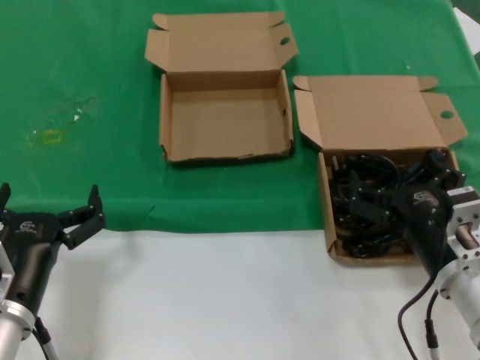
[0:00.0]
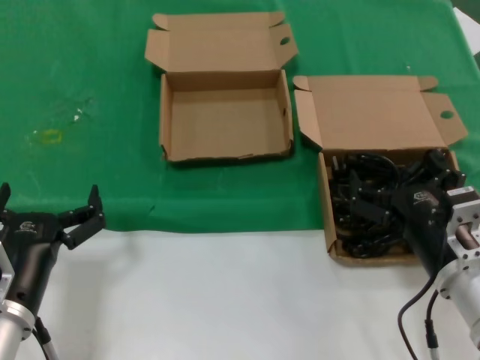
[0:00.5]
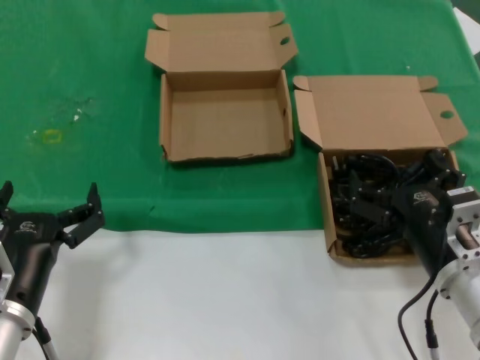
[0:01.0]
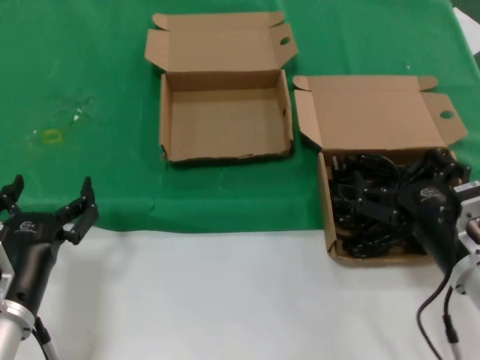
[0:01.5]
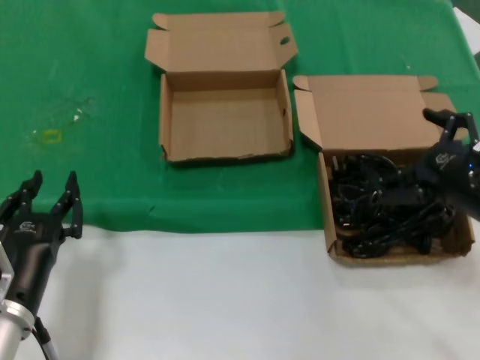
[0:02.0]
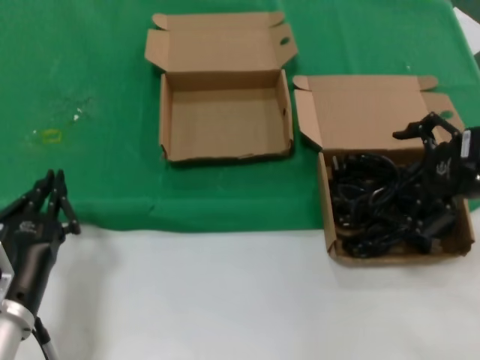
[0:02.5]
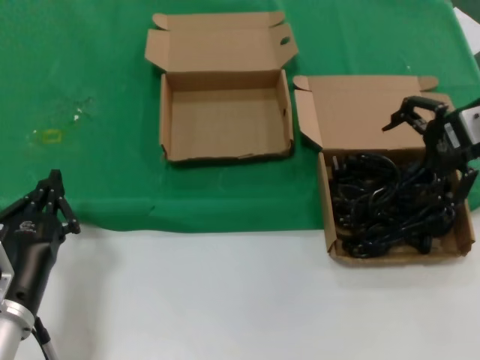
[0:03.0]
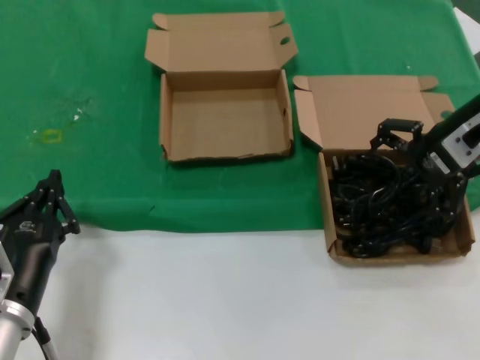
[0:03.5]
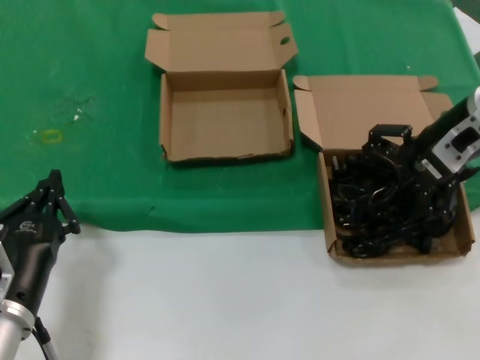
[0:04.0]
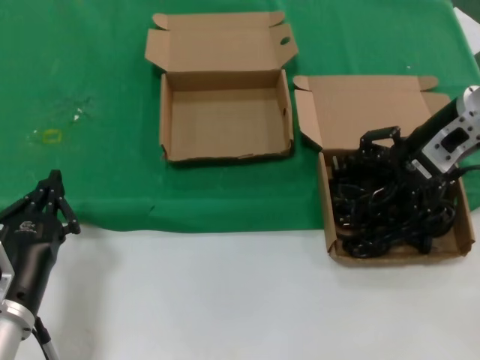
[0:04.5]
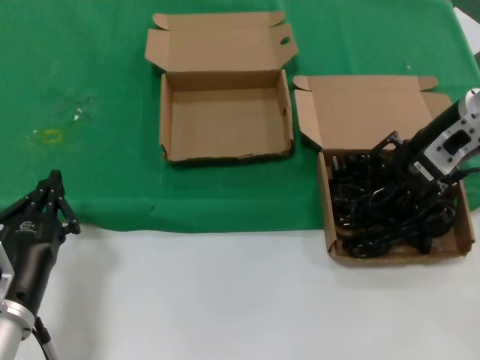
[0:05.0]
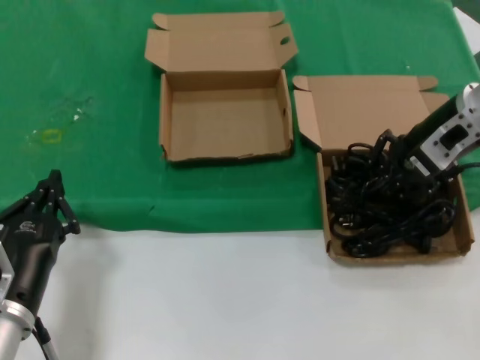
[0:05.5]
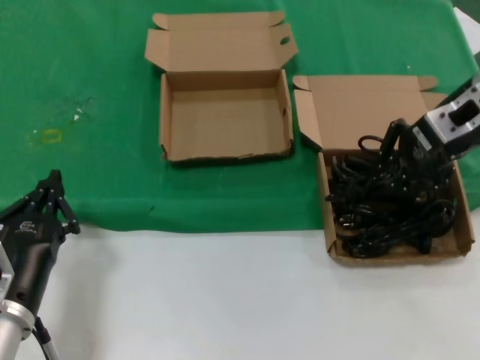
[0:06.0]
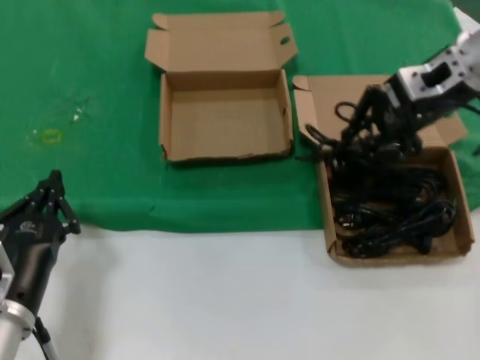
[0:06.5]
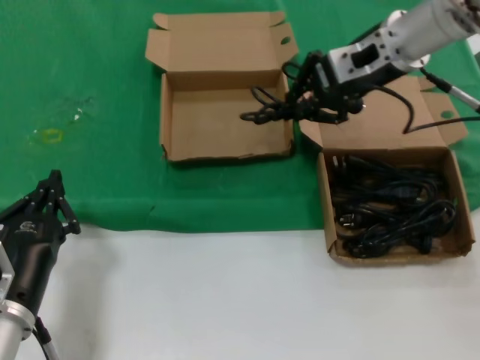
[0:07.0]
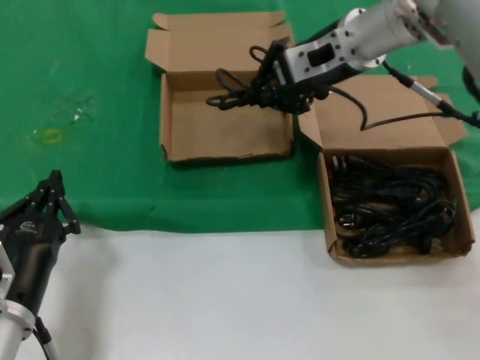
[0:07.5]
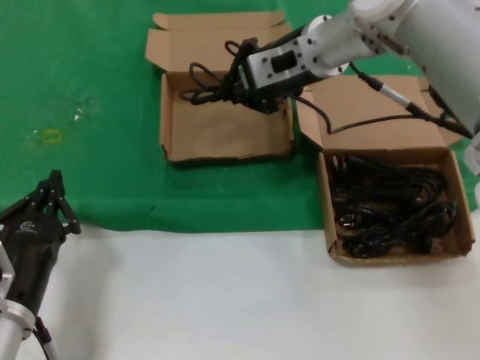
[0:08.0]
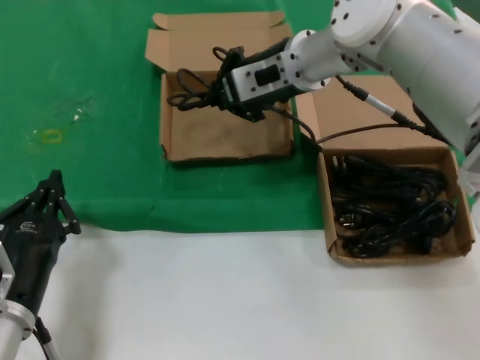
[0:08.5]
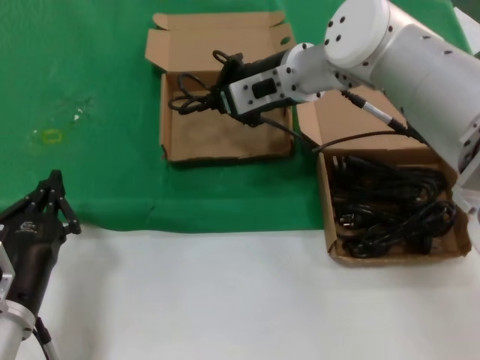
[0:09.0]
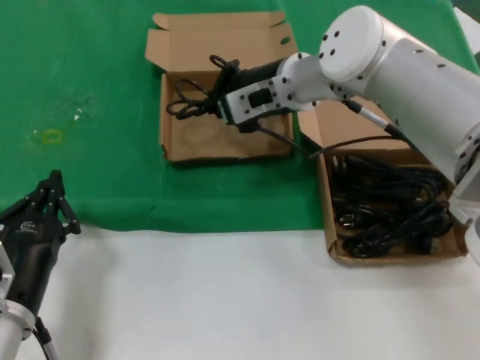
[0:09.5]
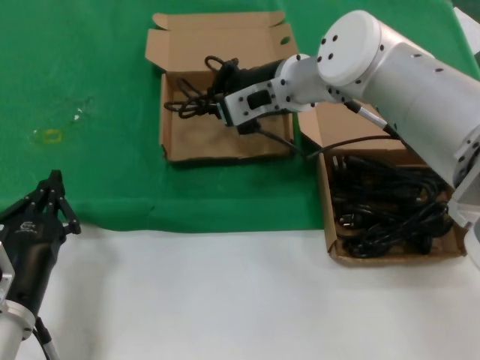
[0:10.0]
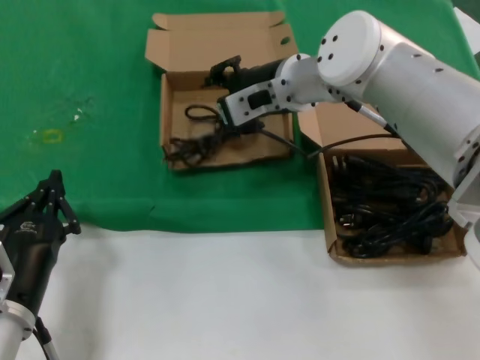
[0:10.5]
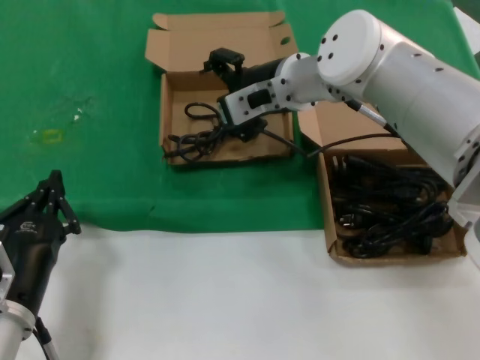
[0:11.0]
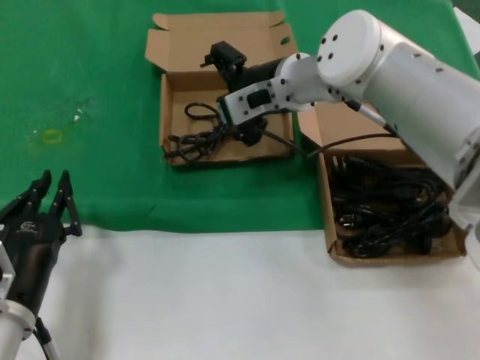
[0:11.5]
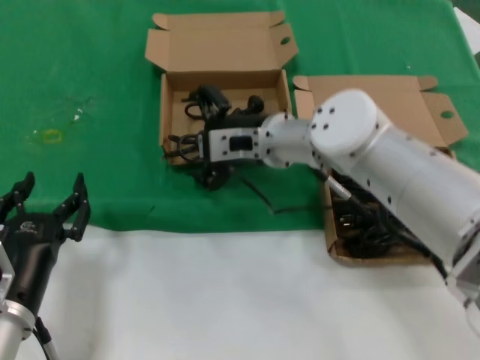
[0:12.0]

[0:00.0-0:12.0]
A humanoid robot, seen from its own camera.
Task of the whole recording: take the parts from the box containing them and put them into an empty box.
Step, 0:00.0 to 0:05.5: Grasp the data cable.
Step, 0:06.0 to 0:10.5: Place the data cable in the another box.
0:00.0 to 0:02.0: The right hand goes roughly 10 cm upward and to the right.
0:02.0 to 0:04.0: The right hand heads forward and upward, covering approximately 20 cm.
0:04.0 to 0:06.0: The hands stay close to where they were, moving slightly.
0:06.0 to 0:08.0: The right hand shifts approximately 20 cm to the left.
0:08.0 to 0:10.0: The right hand moves downward, approximately 5 cm.
0:10.0 to 0:12.0: The right hand goes approximately 5 cm downward.

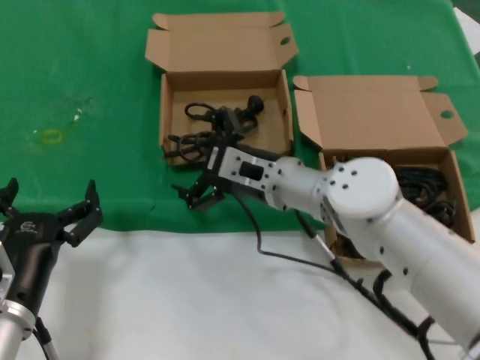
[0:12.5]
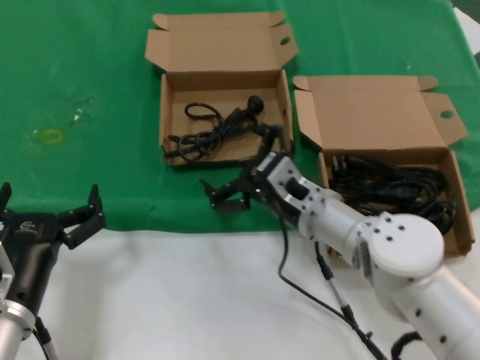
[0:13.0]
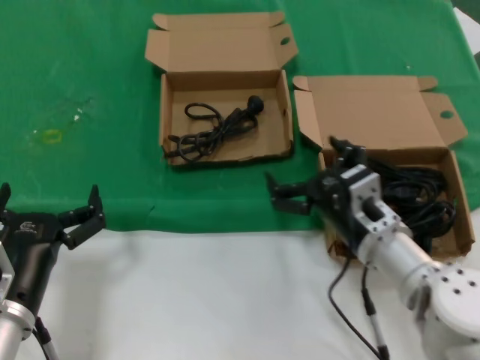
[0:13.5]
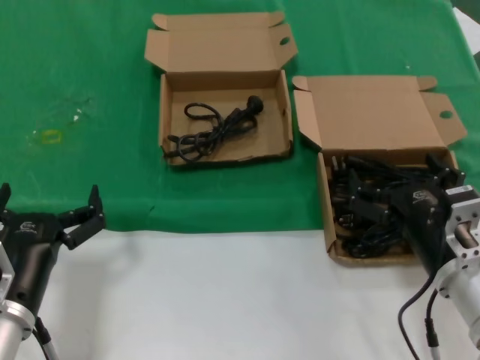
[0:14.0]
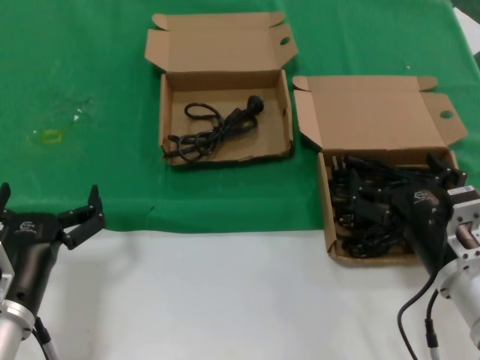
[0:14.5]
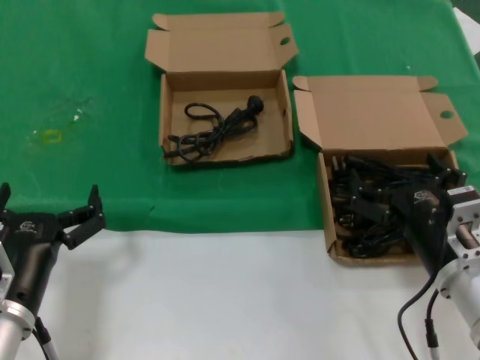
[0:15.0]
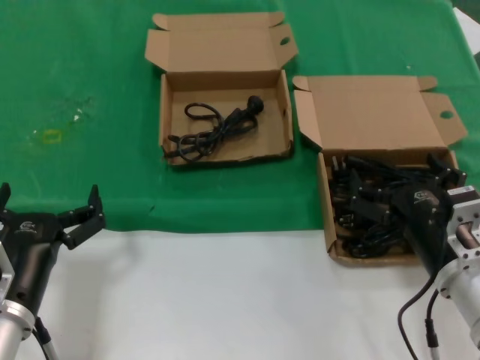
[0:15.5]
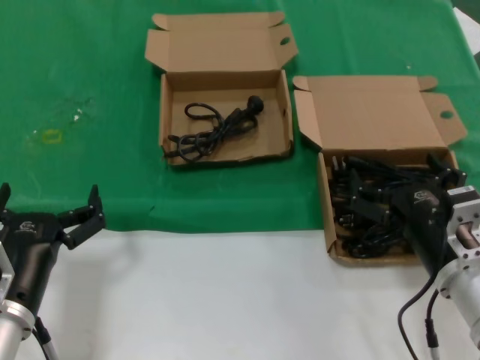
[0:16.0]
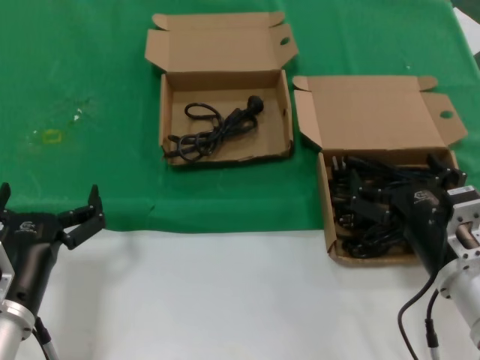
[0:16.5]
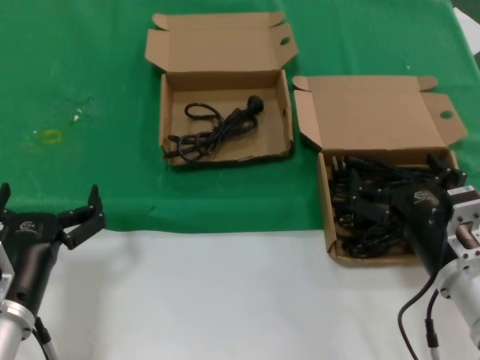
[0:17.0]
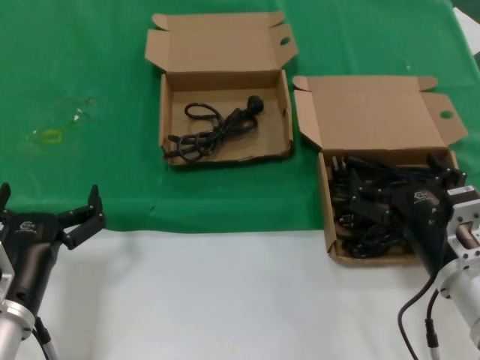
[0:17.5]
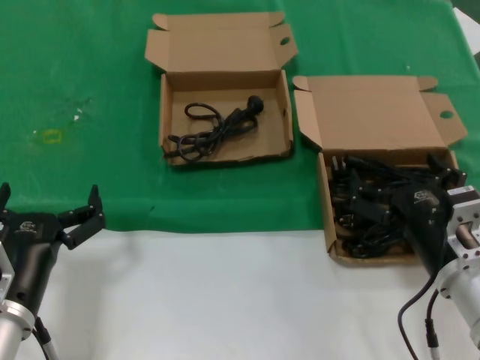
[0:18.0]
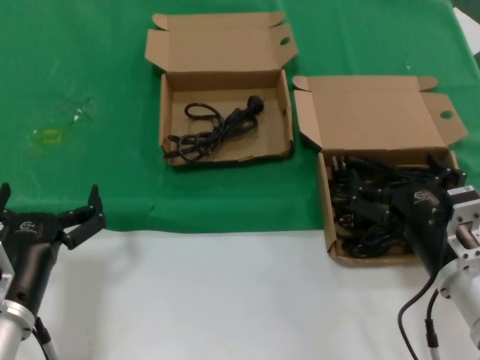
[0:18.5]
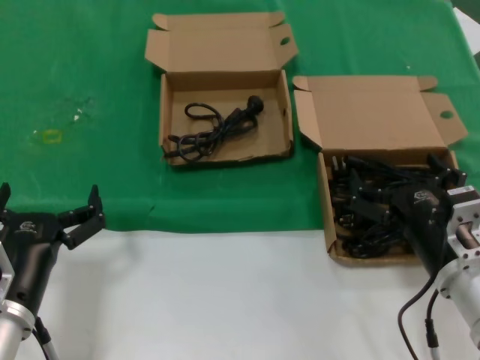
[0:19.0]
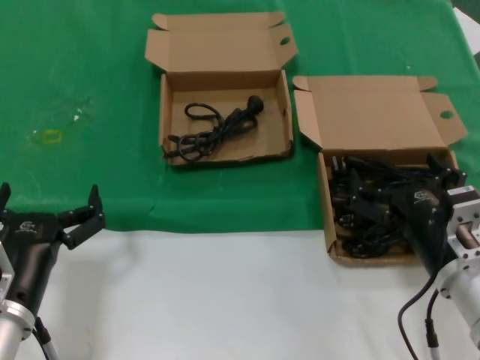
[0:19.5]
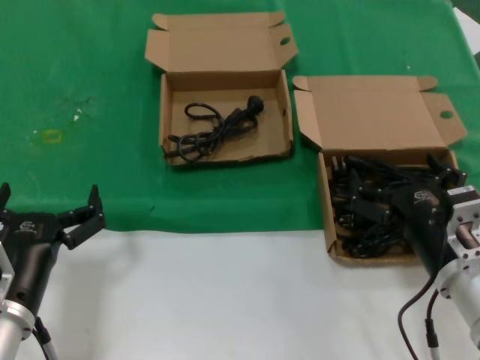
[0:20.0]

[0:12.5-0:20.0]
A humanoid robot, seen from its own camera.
Task of the whole recording: take the parts from the box containing them and put them into an empty box.
0:12.5 to 0:14.5: The right hand heads backward and to the right, covering some 25 cm.
0:14.5 to 0:20.0: Both hands stay about where they are.

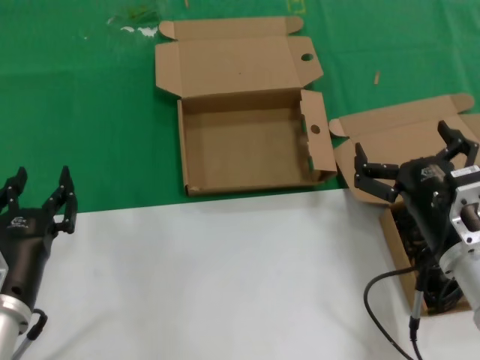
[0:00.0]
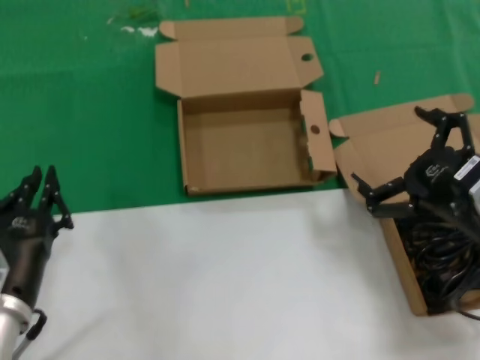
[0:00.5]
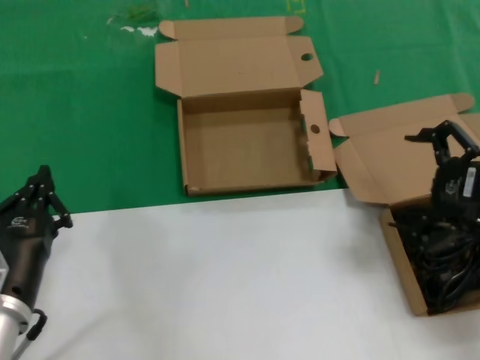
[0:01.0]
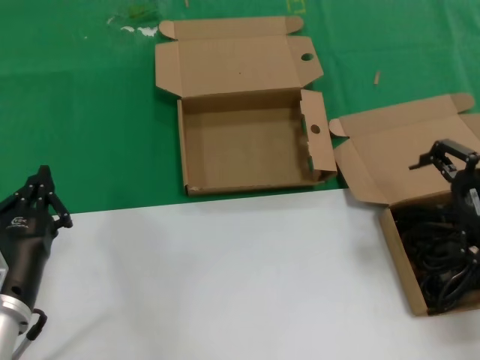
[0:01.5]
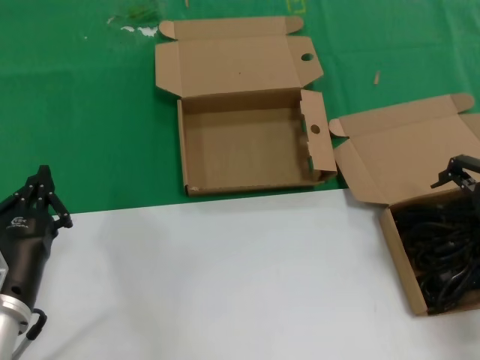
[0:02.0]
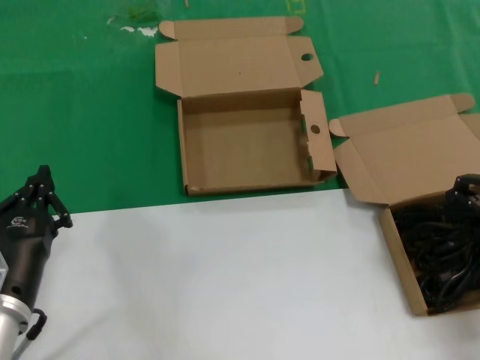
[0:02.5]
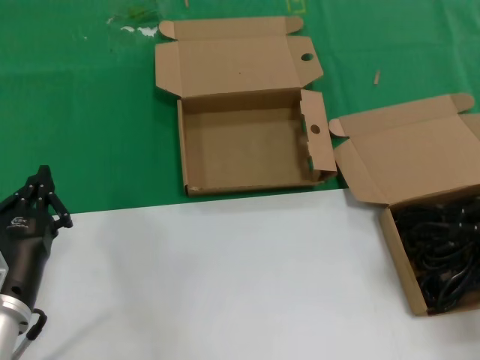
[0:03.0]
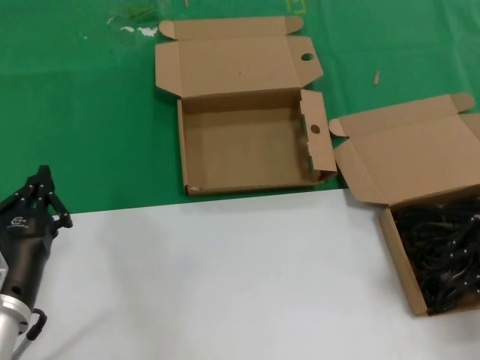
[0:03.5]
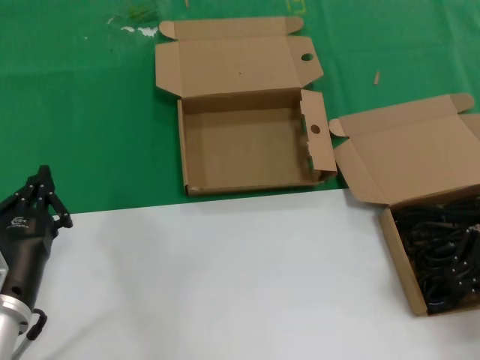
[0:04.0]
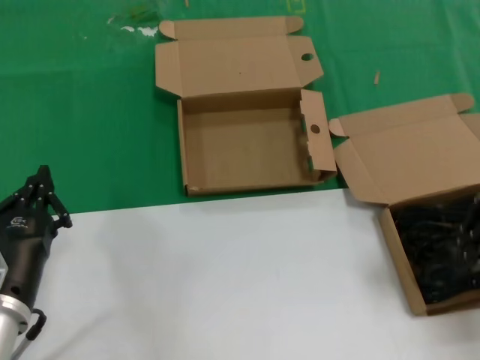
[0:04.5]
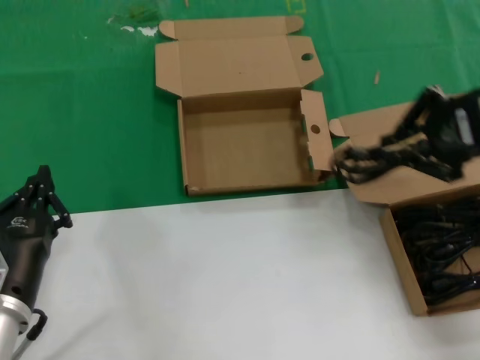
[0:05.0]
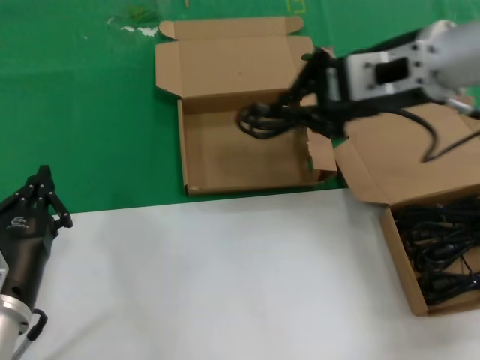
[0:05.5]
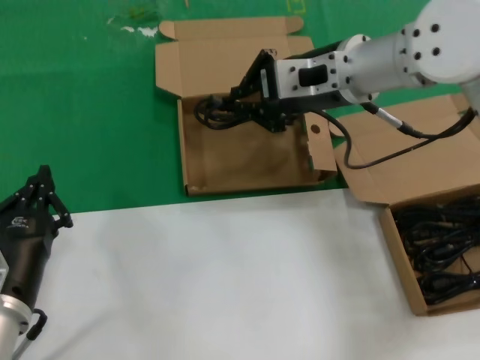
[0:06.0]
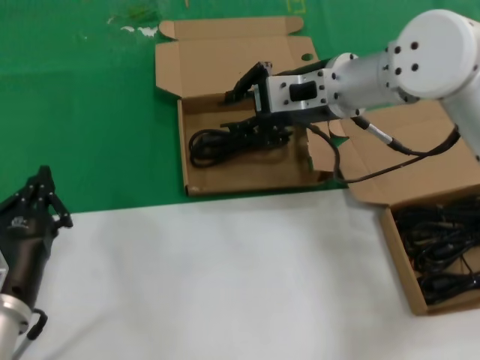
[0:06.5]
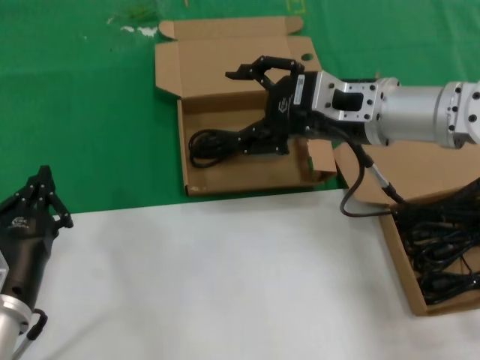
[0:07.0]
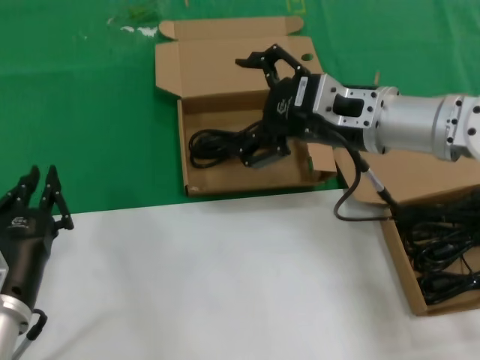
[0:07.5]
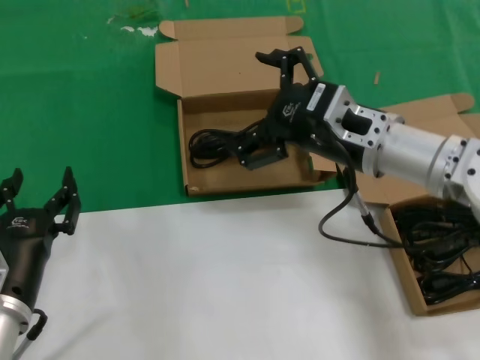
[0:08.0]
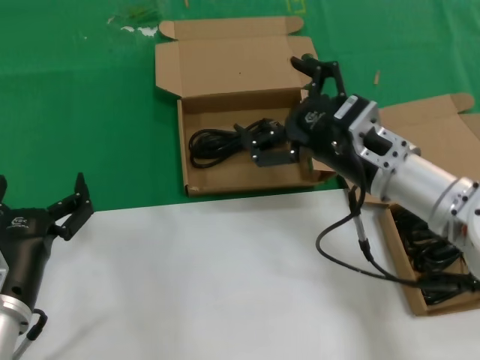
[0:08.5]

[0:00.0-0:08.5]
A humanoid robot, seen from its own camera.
Task of the whole recording: take the parts from the box containing them and put them into an empty box.
Step, 0:00.0 to 0:04.0: Grasp the data cable.
Step, 0:04.5 to 0:06.5: Place the data cable in the another box.
0:00.0 to 0:02.0: The right hand travels upward, to the right and forward by about 20 cm.
0:02.0 to 0:04.0: The right hand moves some 5 cm.
0:04.0 to 0:06.5: The right hand moves to the left and forward, about 25 cm.
0:06.5 to 0:08.5: The right hand heads downward and backward, covering approximately 15 cm.
